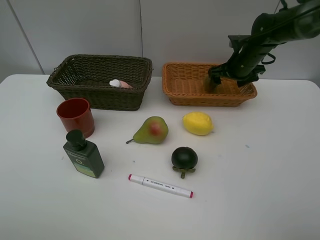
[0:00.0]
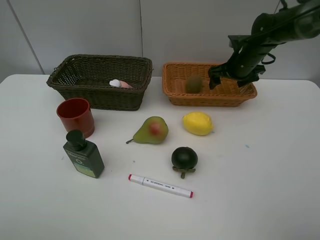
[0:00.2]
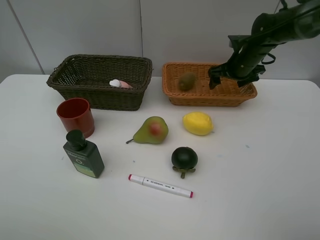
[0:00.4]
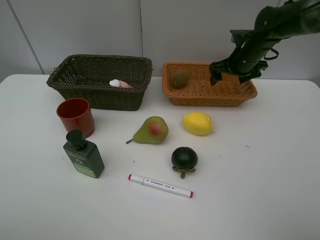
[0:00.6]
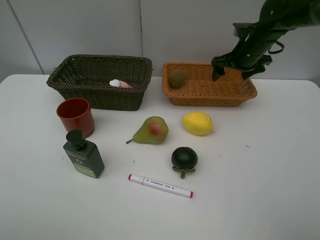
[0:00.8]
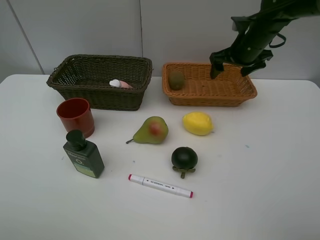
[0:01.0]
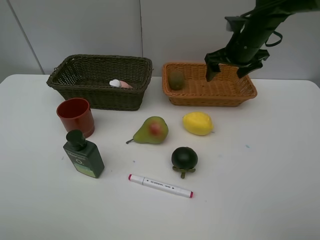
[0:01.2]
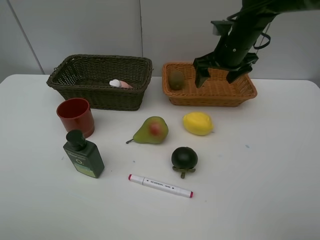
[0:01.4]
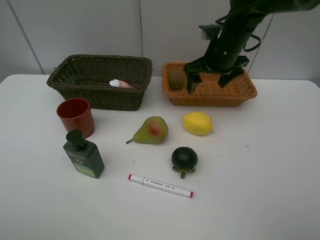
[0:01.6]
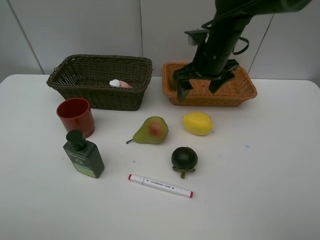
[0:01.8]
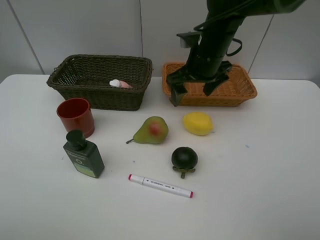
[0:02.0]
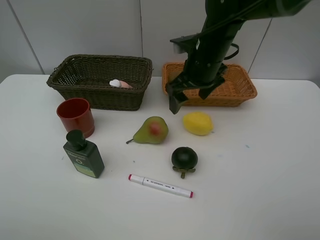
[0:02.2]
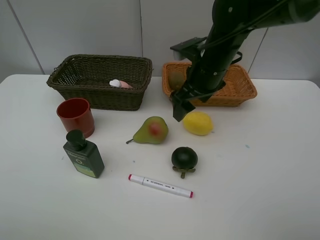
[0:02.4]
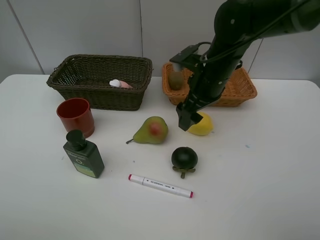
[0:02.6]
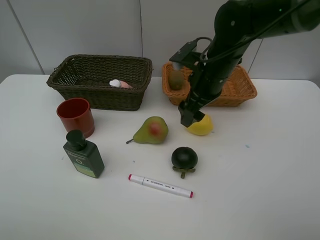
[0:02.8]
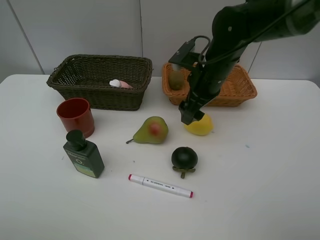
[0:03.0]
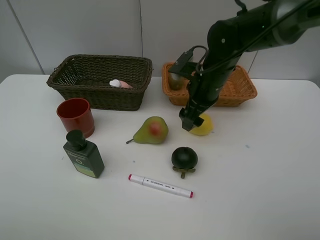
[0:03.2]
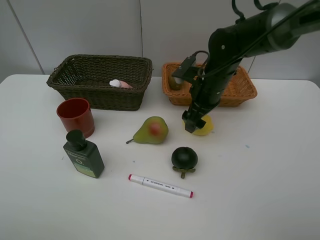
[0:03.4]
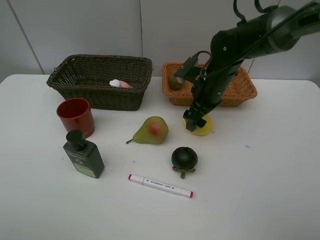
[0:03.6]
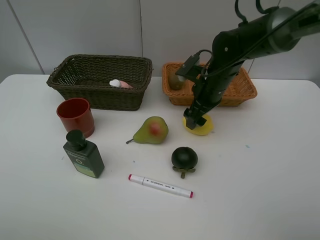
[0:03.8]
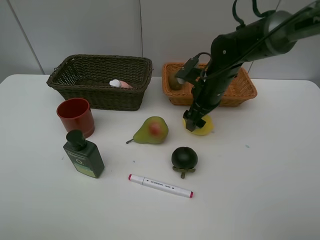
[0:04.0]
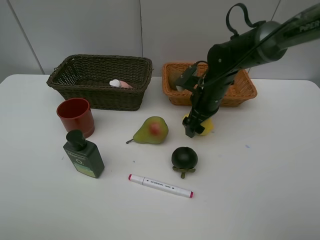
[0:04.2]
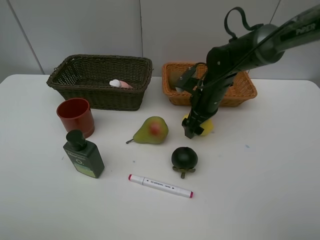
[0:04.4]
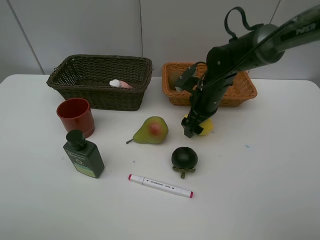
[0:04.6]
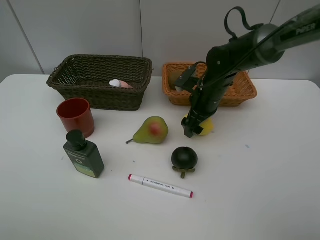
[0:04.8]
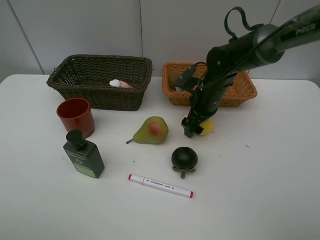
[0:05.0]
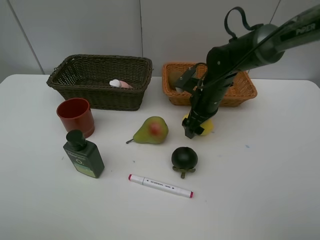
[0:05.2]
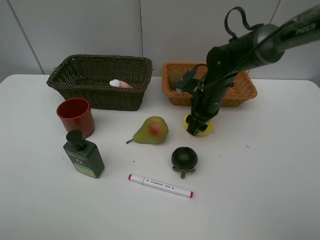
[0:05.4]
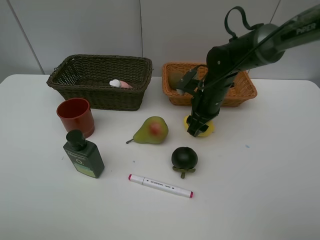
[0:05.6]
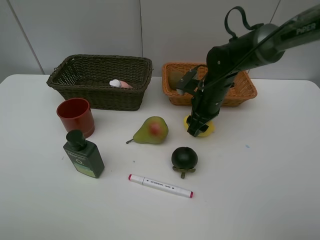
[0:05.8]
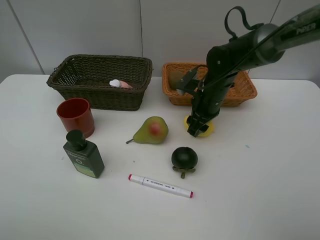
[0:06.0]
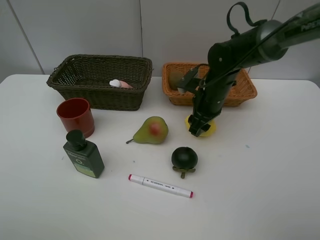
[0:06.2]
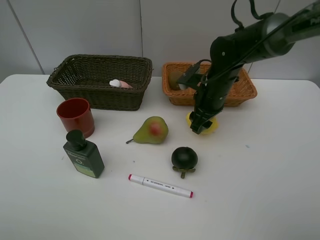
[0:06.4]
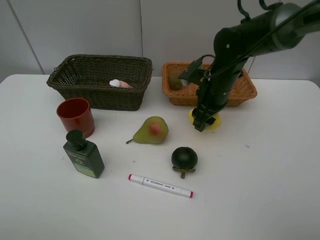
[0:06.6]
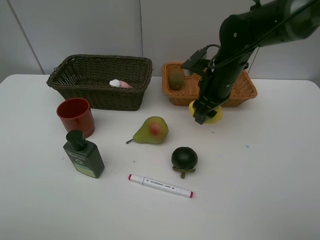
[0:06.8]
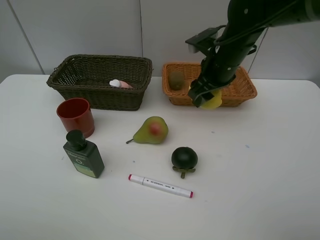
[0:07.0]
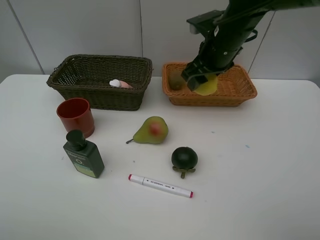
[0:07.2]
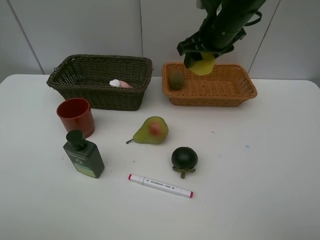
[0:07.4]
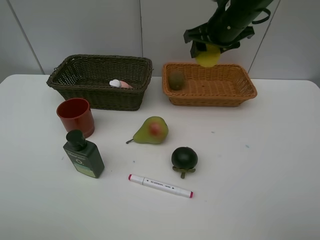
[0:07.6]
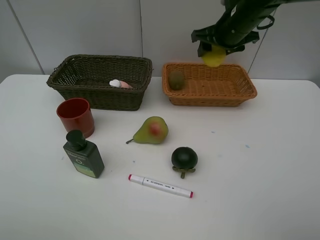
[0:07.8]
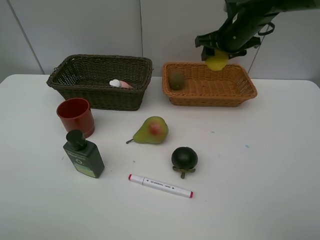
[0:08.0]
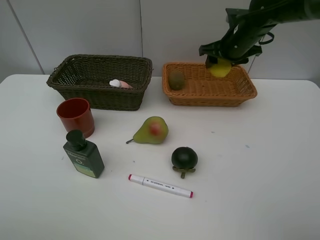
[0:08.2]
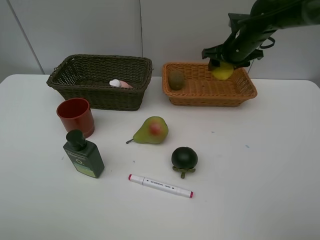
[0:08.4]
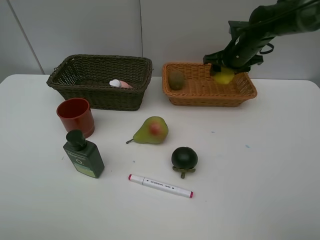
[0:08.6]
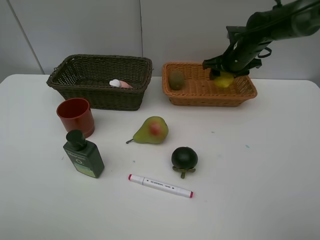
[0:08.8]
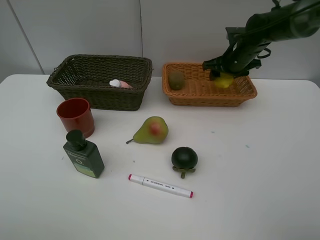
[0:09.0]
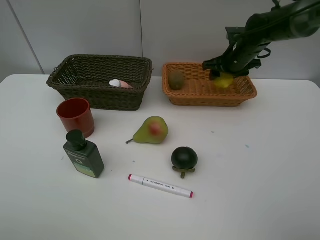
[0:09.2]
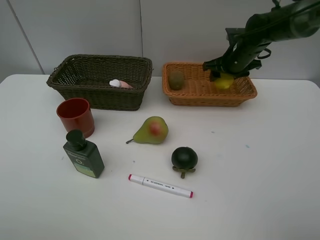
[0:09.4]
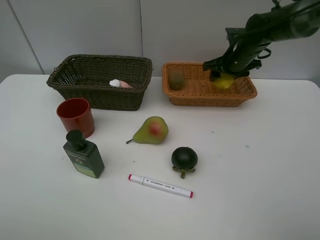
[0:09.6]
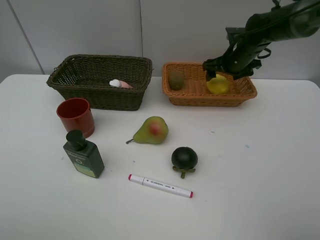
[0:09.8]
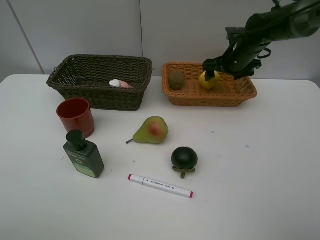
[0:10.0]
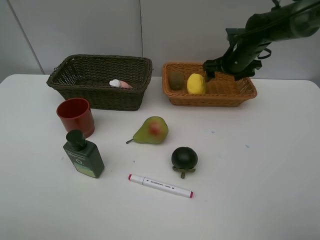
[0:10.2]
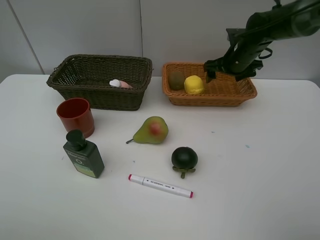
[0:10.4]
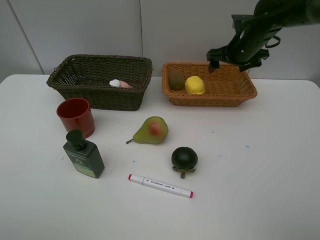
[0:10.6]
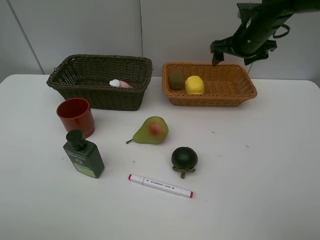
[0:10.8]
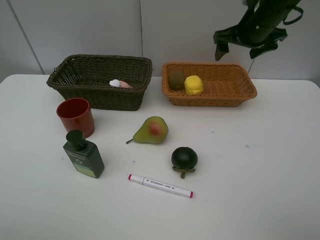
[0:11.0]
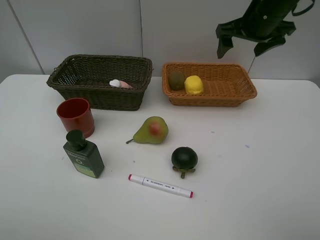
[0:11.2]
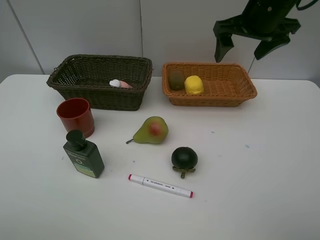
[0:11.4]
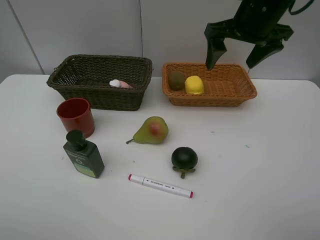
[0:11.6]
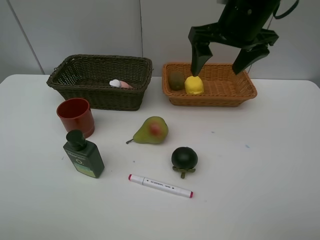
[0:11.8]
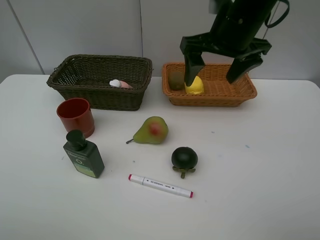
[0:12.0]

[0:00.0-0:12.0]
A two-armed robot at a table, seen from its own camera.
Task of the whole recording: Place multiple objects separately in different baskets.
Step, 0:00.6 to 0:06.6: Pick up the lemon with right gripper.
Step, 0:06.8 to 0:10.4: Place the lemon in the light basket with right gripper.
0:00.0 to 0:01.6: The right gripper shifts roughly 15 cm to the left, backward and upward.
0:01.6 to 0:03.0: The right gripper ends up approximately 5 cm from where it was.
0:03.0 to 0:04.4: The right gripper shifts about 5 cm downward.
0:04.4 to 0:06.0: The right gripper closes.
0:06.0 to 0:07.6: The right gripper heads upward, covering some 15 cm.
0:07.6 to 0:09.0: The right gripper moves downward, to the right and forward, roughly 15 cm.
0:09.0 to 0:10.4: The right gripper opens its fingers.
0:10.4 to 0:12.0: The right gripper travels backward, upward and to the left by approximately 20 cm.

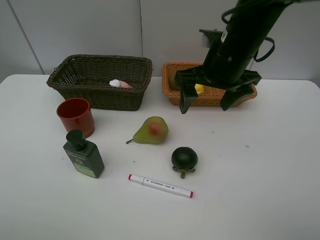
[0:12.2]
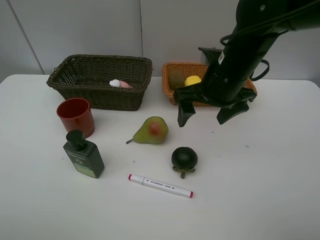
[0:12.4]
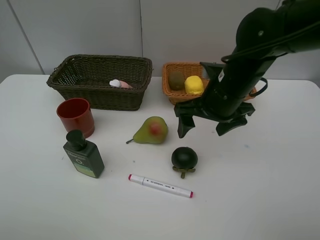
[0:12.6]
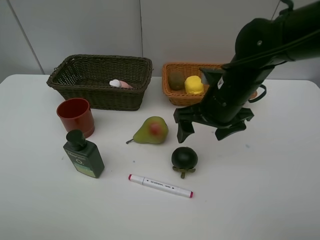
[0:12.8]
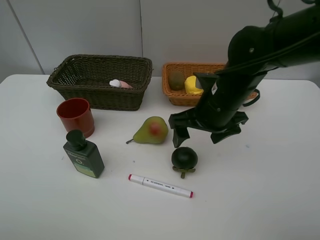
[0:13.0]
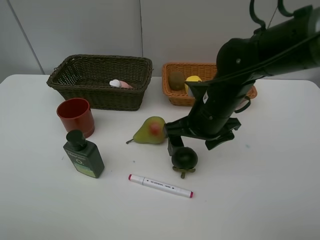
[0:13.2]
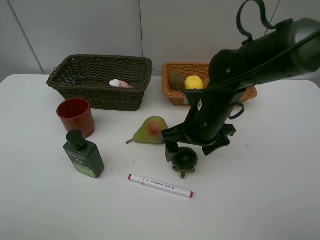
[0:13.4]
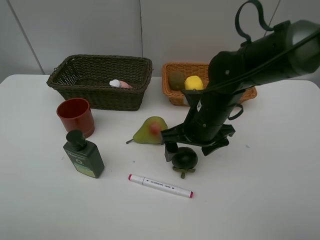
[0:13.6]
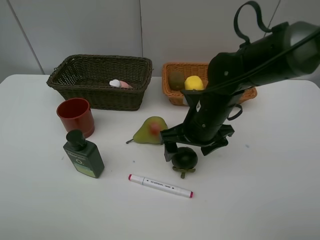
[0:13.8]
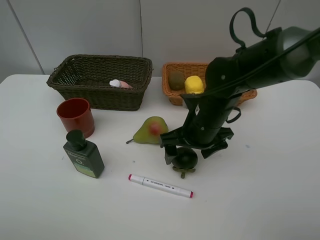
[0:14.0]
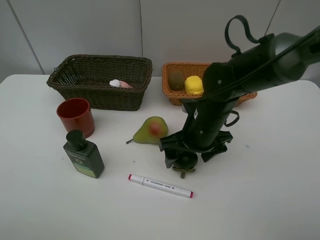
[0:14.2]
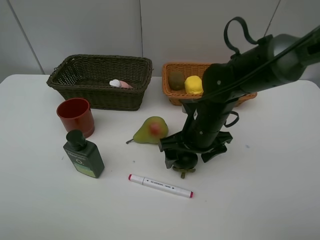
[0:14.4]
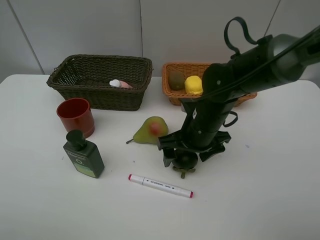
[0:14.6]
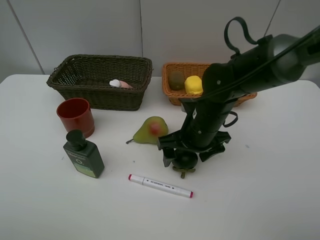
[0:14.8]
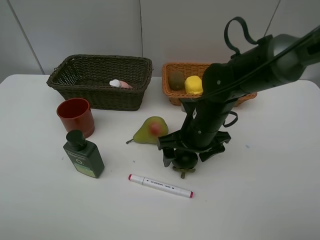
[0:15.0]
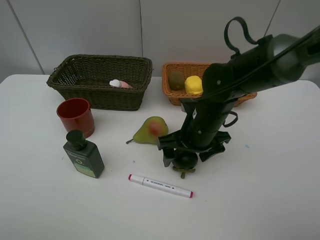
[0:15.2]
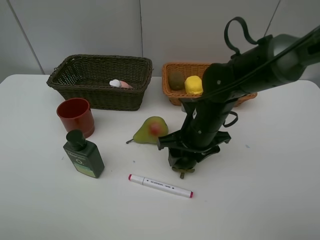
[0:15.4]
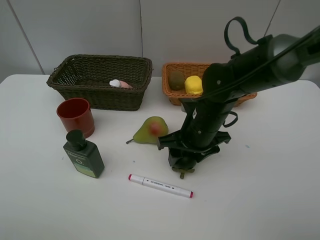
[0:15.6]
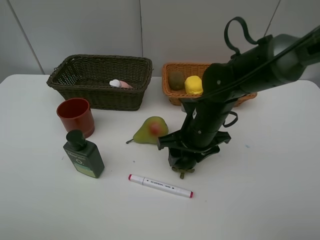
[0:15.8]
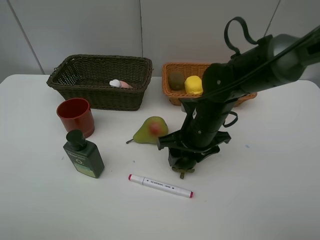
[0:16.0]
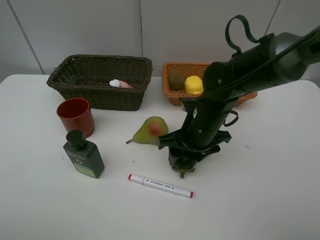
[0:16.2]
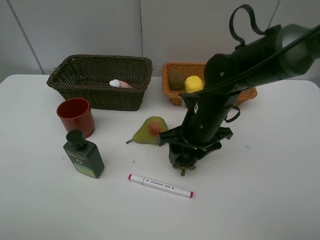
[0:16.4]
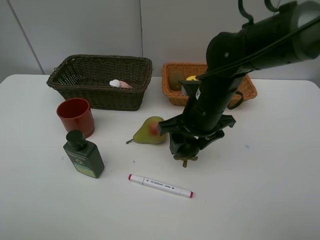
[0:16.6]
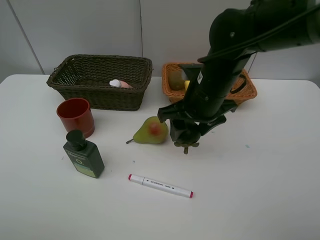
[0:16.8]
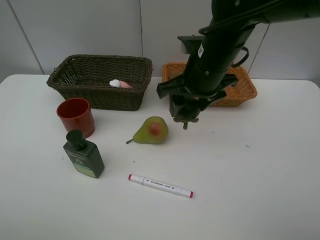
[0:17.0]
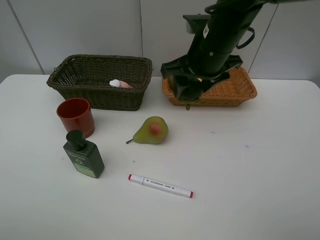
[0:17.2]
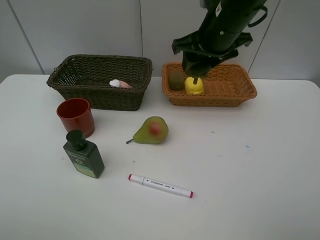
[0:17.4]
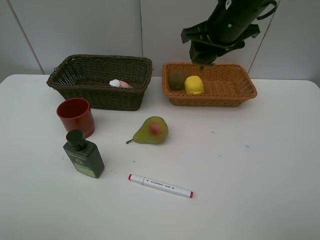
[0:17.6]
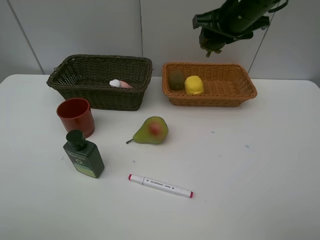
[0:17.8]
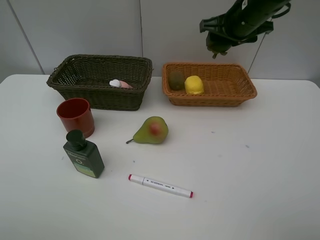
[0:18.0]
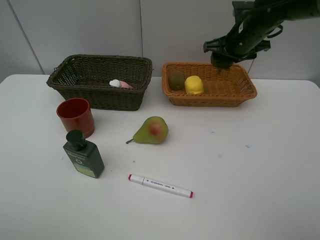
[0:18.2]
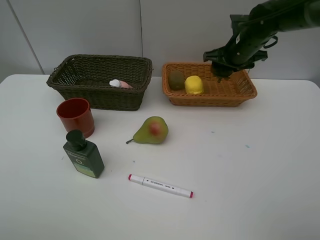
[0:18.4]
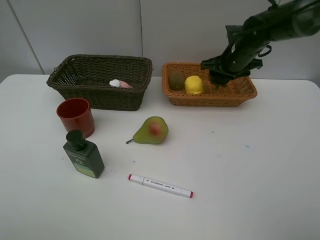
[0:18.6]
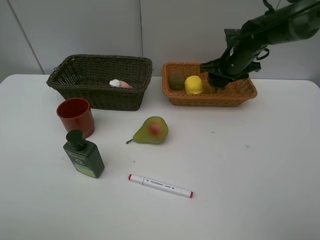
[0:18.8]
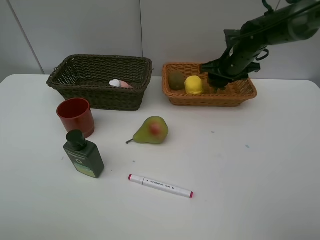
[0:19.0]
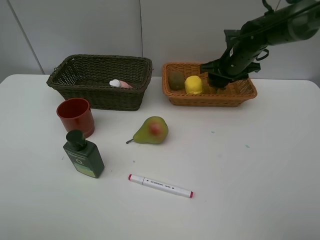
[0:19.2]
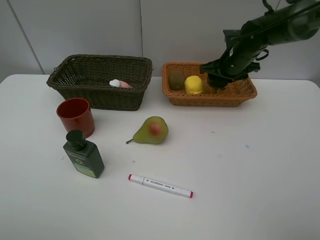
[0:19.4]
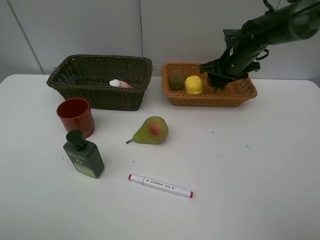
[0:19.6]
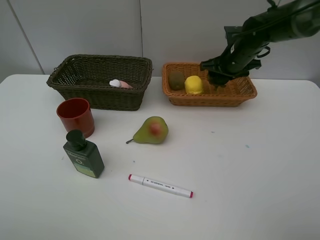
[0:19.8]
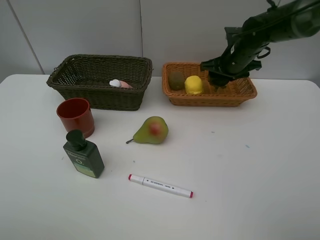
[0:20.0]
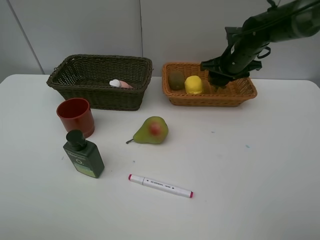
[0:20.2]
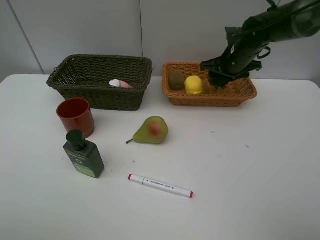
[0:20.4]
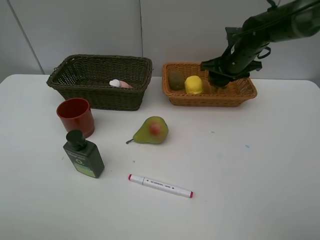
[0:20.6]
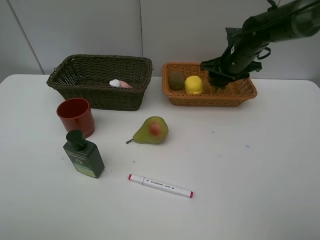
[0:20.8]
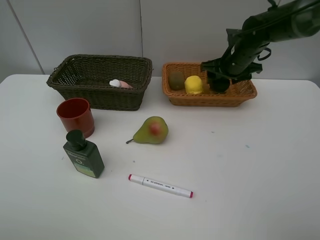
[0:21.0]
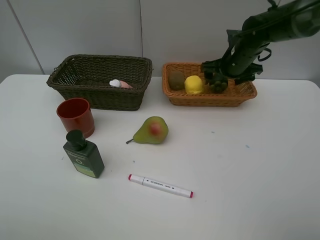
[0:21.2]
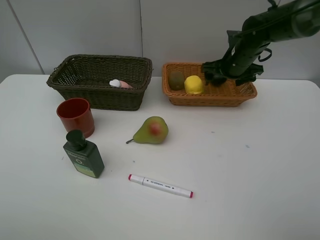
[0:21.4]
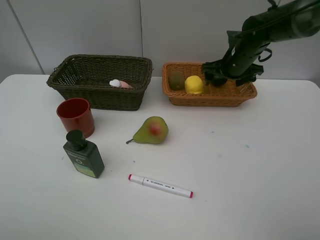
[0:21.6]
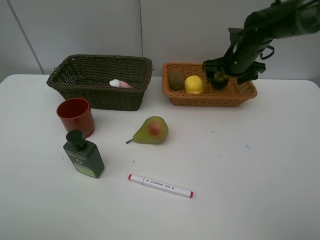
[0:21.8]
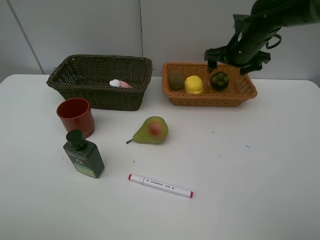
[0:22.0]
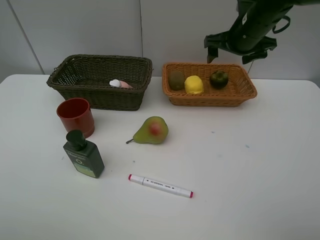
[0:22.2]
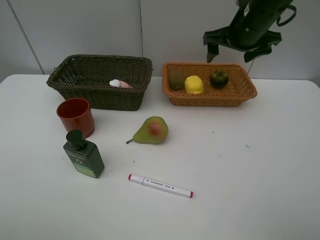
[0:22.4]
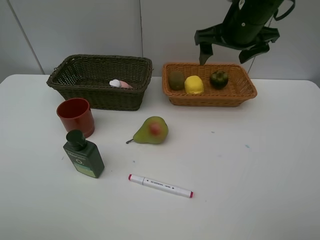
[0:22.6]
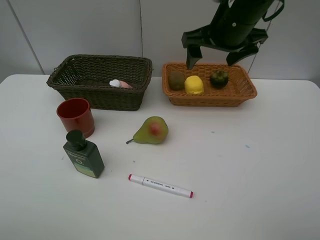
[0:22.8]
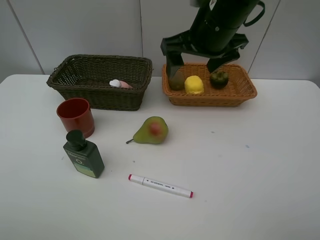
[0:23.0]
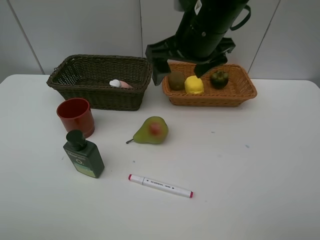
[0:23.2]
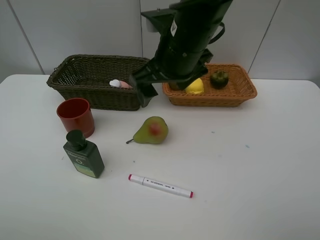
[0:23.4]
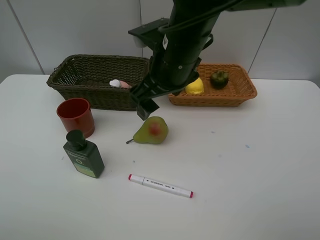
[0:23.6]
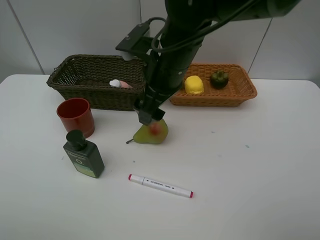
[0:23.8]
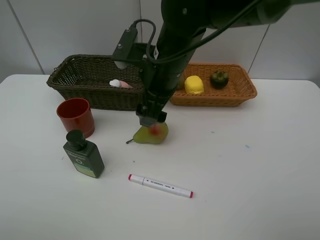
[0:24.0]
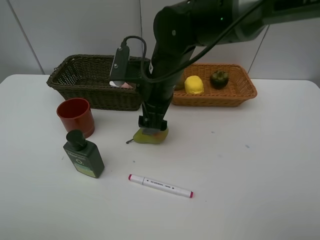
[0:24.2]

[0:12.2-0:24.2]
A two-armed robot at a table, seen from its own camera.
Task of the whole recording: Place multiple objects separately in different baskets.
Step, 0:12.2 to 0:16.4: Pick up the mangosteen with right gripper.
Step, 0:16.6 to 0:22.0: Place the mangosteen in the light basket with right gripper.
0:12.2 to 0:13.8: The right gripper moves downward, about 10 cm.
0:13.8 to 0:15.2: The grippers make only small movements.
0:15.2 to 0:16.6: The right gripper is displaced upward by roughly 5 cm.
0:16.6 to 0:18.2: The right gripper shifts approximately 20 cm forward and to the right.
0:18.2 to 0:21.2: The grippers stay close to where they were, moving slightly.
0:21.2 to 0:22.6: The right gripper travels upward, backward and to the left by about 15 cm.
0:22.6 to 0:24.2: The right gripper moves to the left and downward, some 15 cm.
